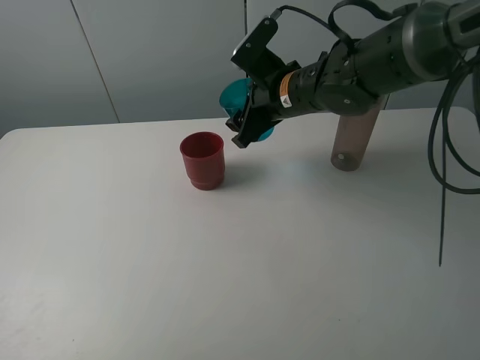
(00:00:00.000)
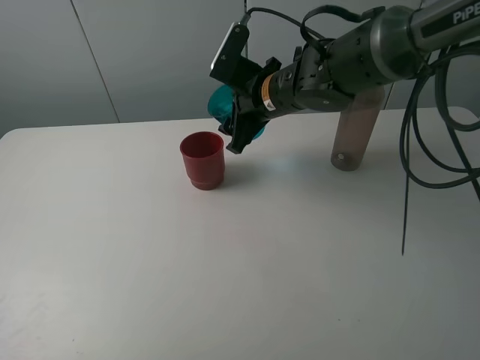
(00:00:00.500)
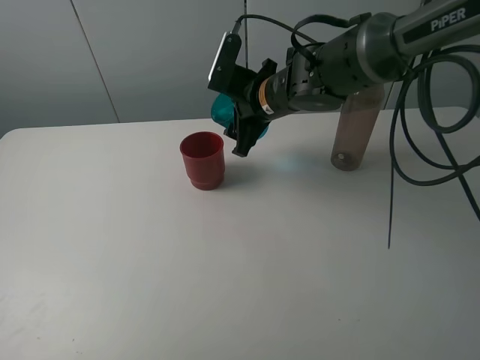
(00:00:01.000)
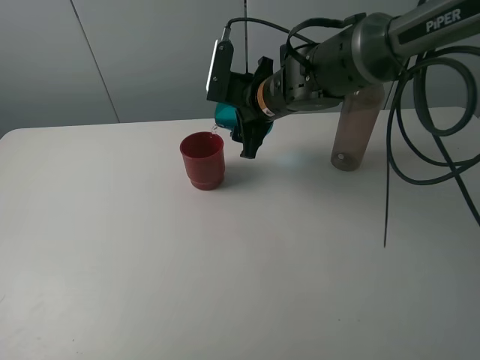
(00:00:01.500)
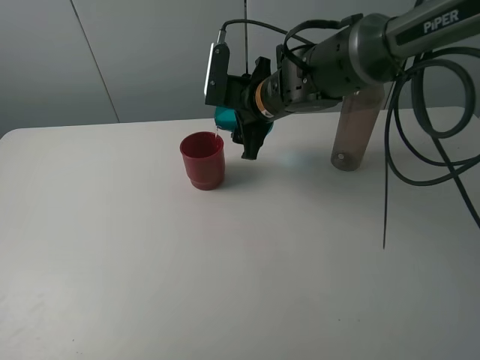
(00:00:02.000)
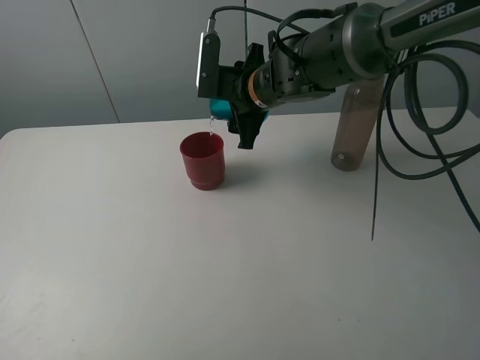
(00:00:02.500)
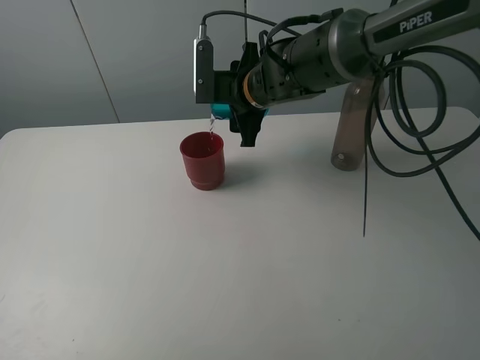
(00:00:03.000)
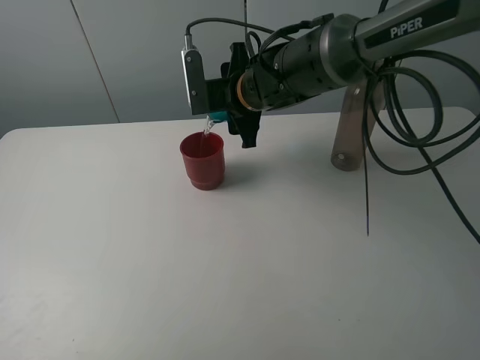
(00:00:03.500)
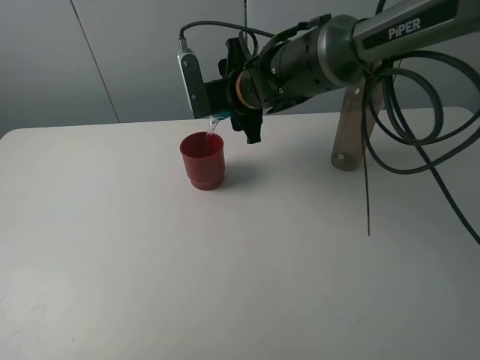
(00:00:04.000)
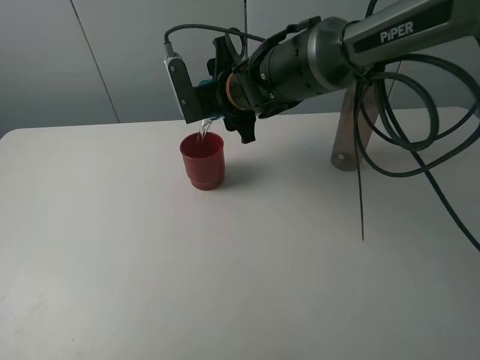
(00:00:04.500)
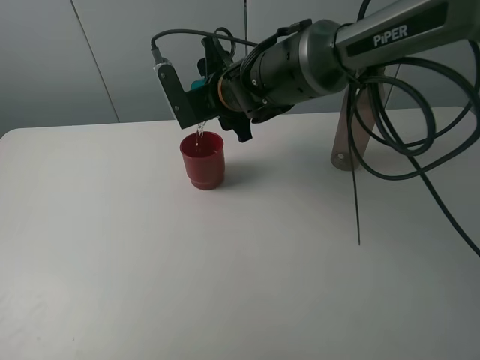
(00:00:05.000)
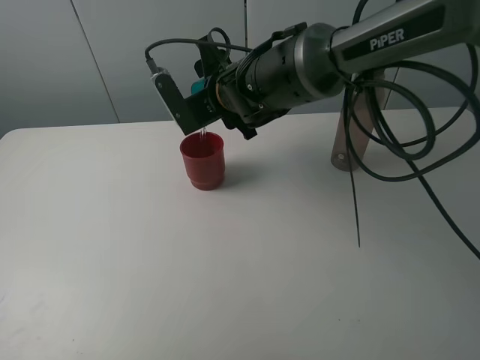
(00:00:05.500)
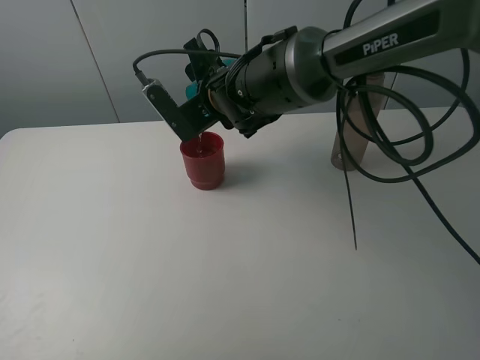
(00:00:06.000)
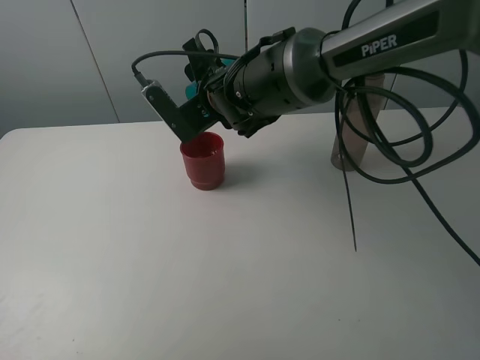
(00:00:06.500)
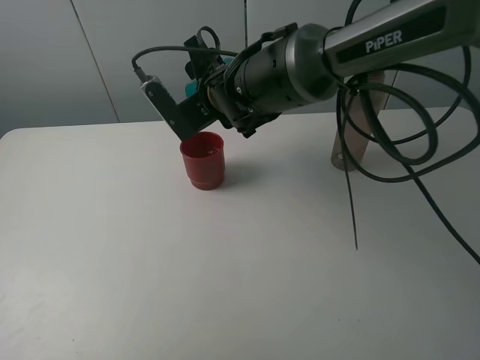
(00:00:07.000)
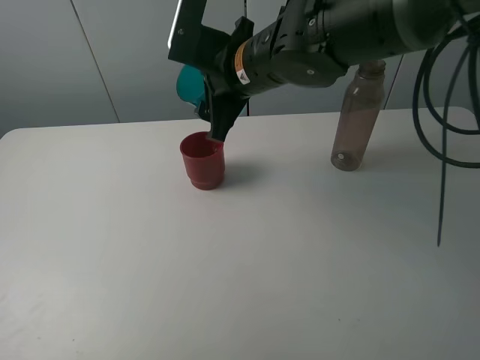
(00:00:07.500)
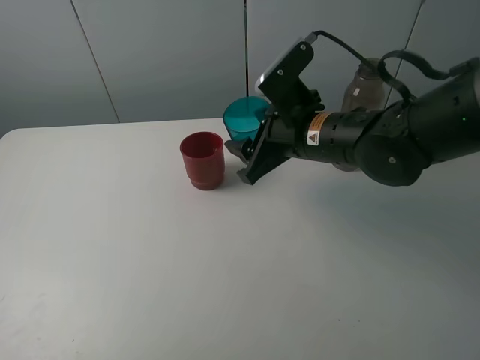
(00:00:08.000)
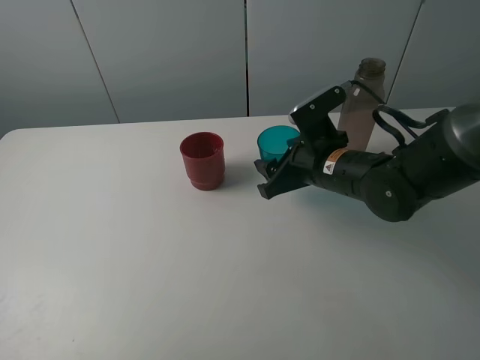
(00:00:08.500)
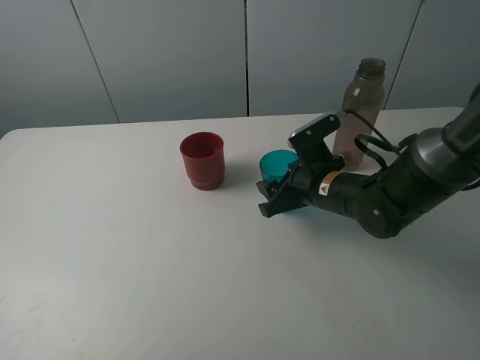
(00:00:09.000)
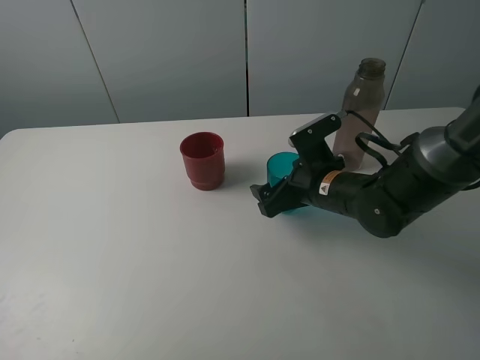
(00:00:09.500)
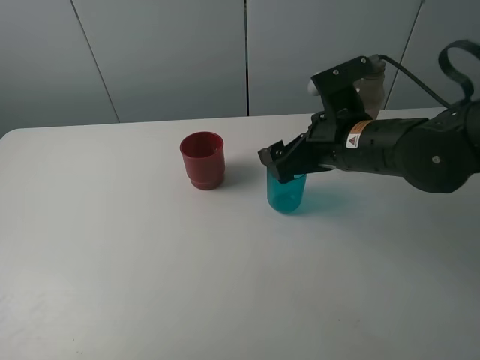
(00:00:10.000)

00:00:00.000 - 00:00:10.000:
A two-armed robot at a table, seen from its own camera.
Task of the whole recording: pick up the bottle and pour water into the cup, then pick up the cup containing water and pour it into another cup.
Step, 00:00:00.000 - 00:00:07.000: Pour water from blue cup to red cup with the right gripper.
Step, 00:00:07.500 - 00:00:09.500: Place the blue cup with the right gripper.
00:00:06.000 - 00:00:08.000: The right gripper travels to the right and backward by about 15 cm.
00:00:08.000 - 00:00:10.000: The right gripper moves about 10 cm downward and comes back, and opens its fingers.

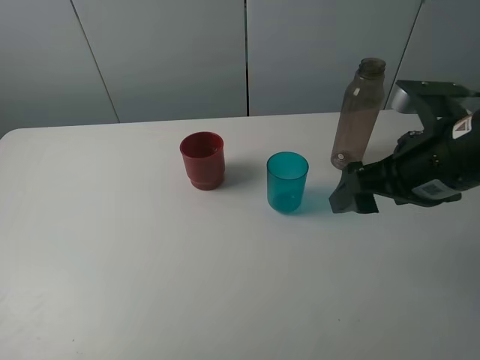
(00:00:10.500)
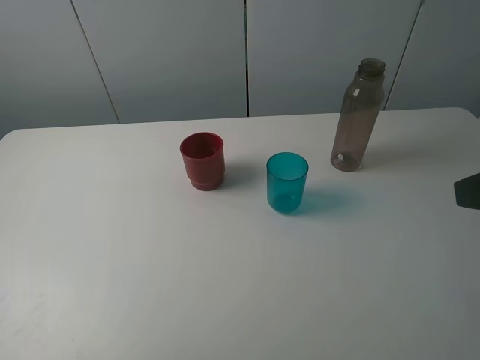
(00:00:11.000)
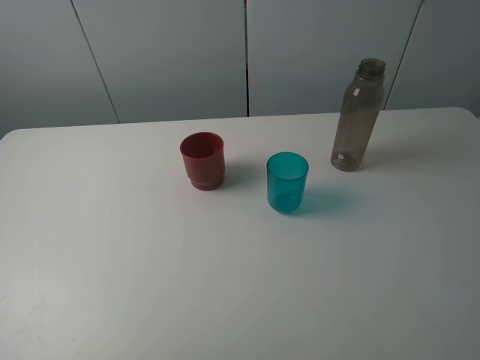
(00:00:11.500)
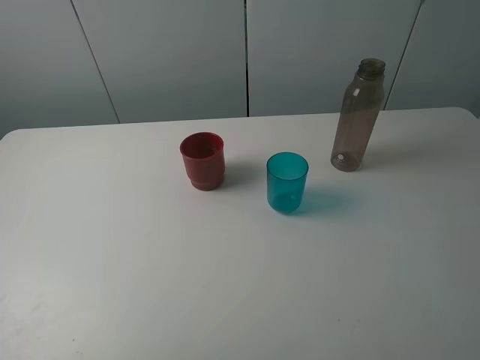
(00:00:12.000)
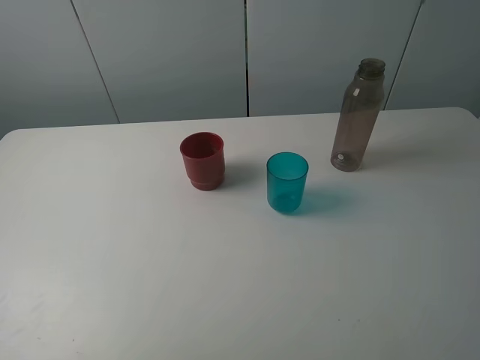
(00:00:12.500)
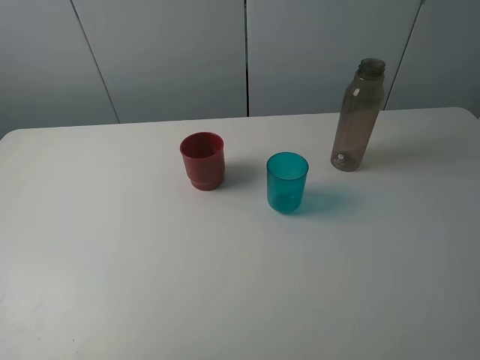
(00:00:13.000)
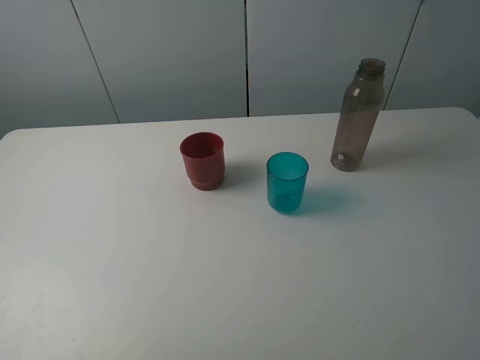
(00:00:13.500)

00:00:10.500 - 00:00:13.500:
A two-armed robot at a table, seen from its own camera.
Task of the whole recording: pick up the bottle and pour water into the cup, then pick up the cup containing water and pour it into another cup.
00:00:10.500 - 00:00:12.000: The right gripper goes roughly 20 cm backward and to the right.
